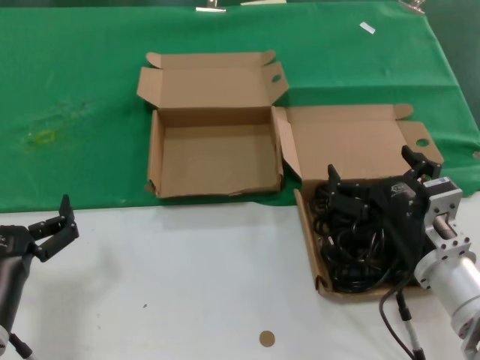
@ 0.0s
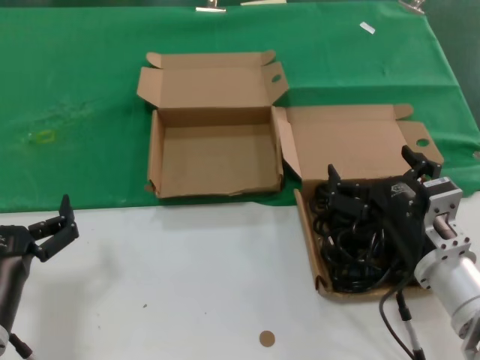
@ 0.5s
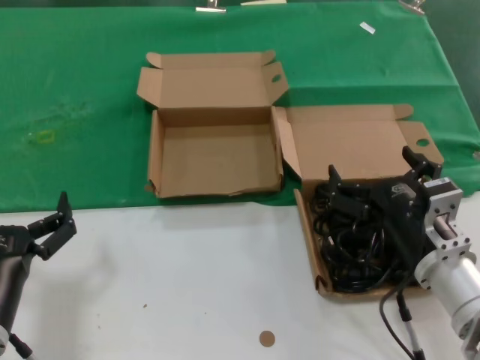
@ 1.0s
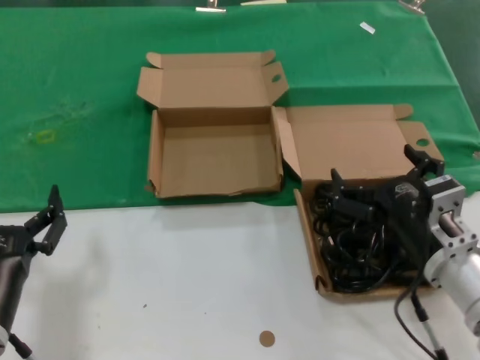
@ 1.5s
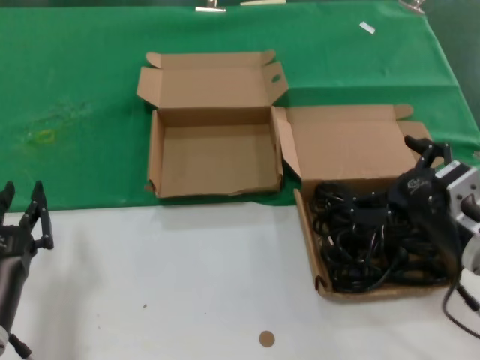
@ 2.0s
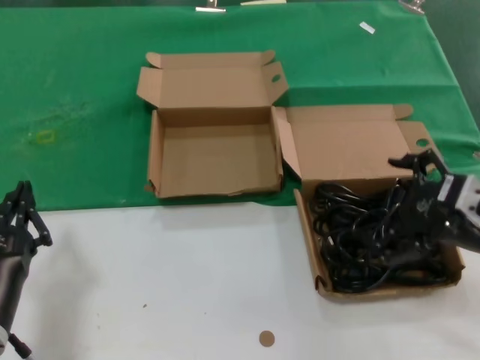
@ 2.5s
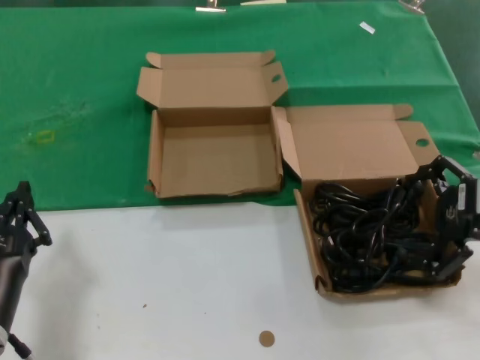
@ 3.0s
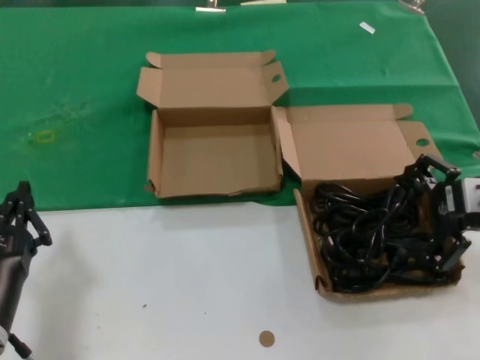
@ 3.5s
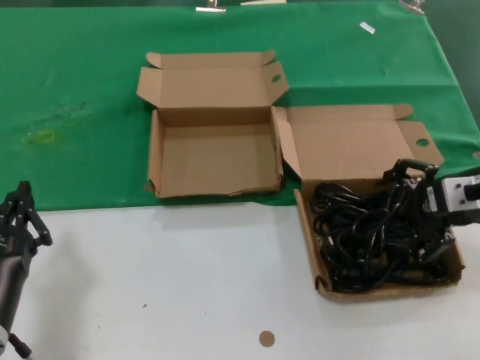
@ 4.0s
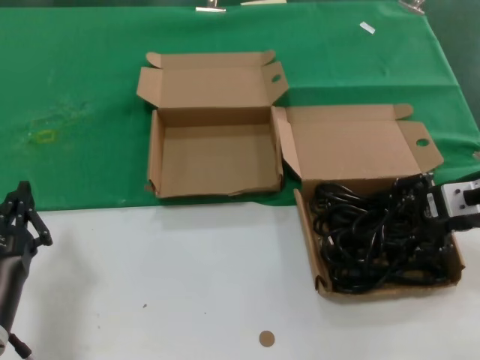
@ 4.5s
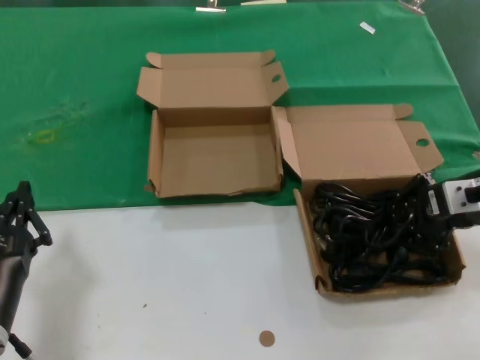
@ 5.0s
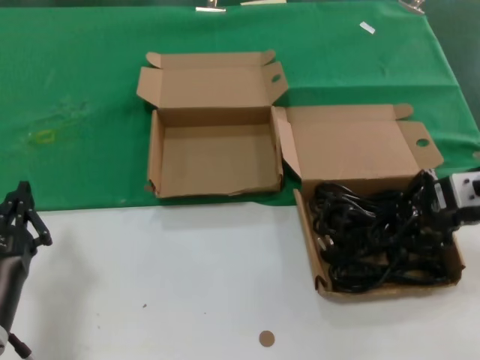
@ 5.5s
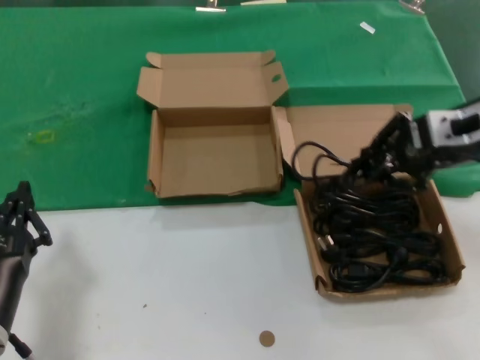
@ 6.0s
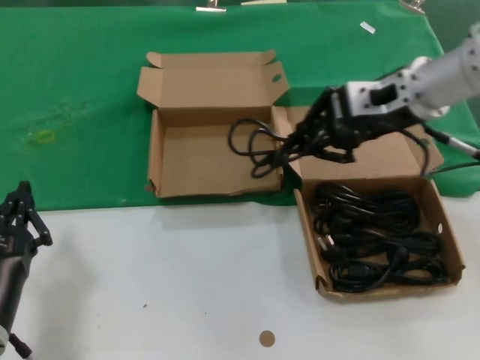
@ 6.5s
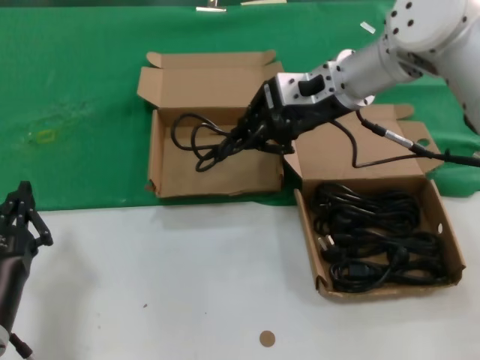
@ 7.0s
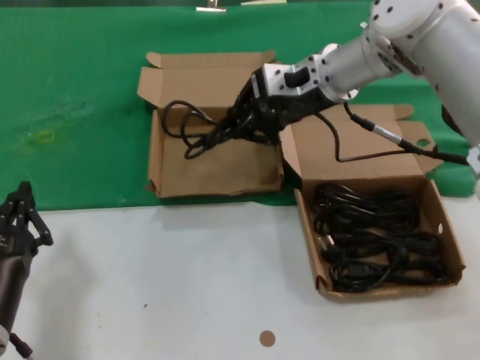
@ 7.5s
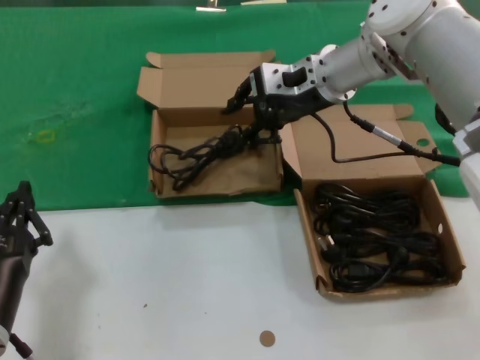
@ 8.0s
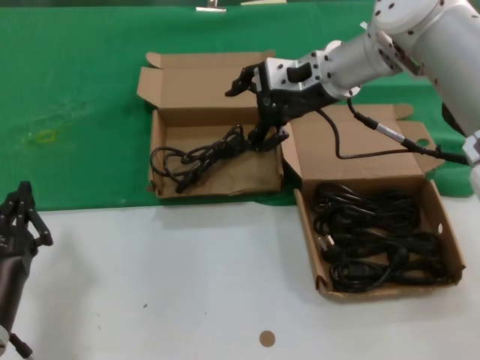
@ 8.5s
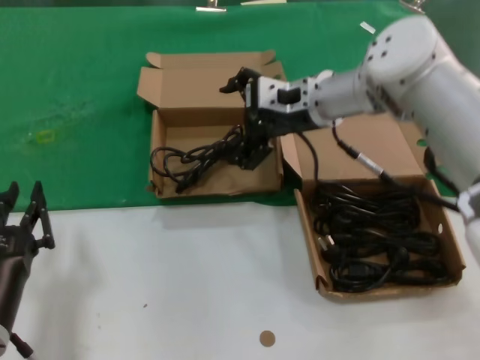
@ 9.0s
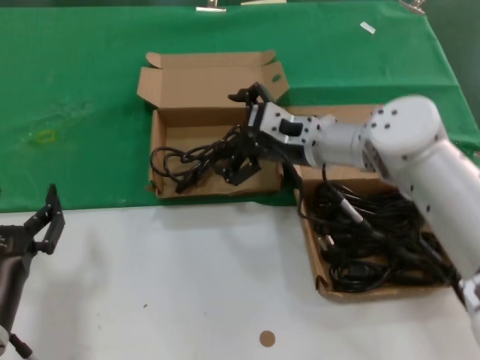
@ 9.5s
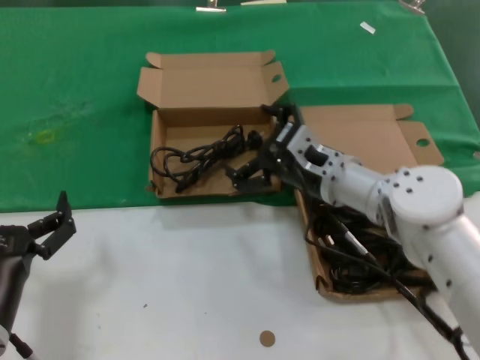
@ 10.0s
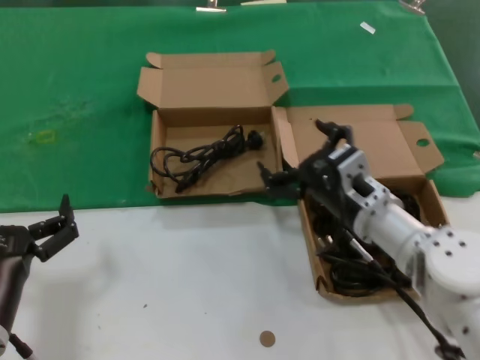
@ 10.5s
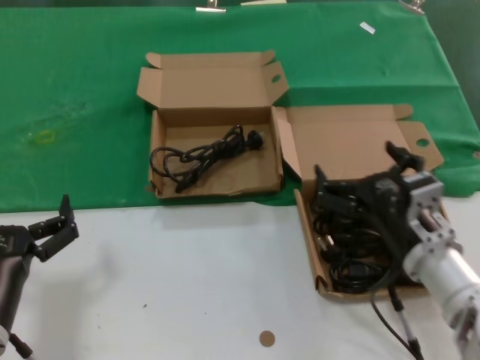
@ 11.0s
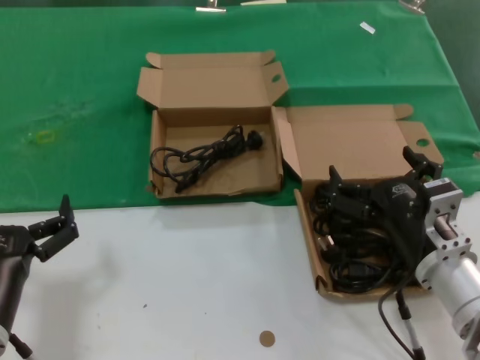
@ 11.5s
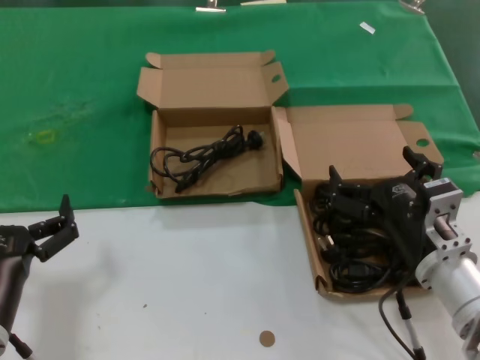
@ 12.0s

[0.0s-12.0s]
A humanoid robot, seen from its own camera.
Task of the whole recording: take the parts from the box containing them and put them into an empty box.
Step, 0.0s to 5.0s: Grasp the data cable.
Step, 5.5s to 8.0s: Place the data cable in the another box.
0.0s to 2.0s: The right hand moves about 5 cm.
2.0s to 4.0s: The right hand heads forward, upward and to the right, covering approximately 15 cm.
4.0s to 6.0s: The right hand moves upward, approximately 10 cm.
6.0s to 8.0s: The right hand moves to the left and forward, roughly 20 cm.
8.0s to 10.0s: The right hand goes approximately 20 cm downward and backward.
10.0s to 12.0s: The right hand shifts some 15 cm backward and to the right.

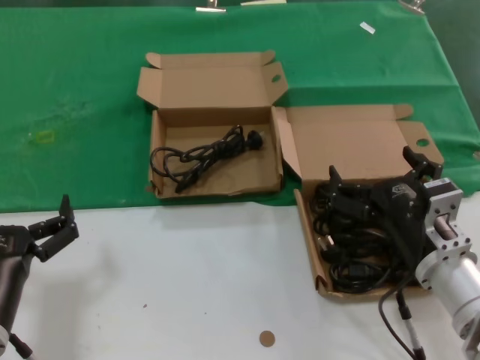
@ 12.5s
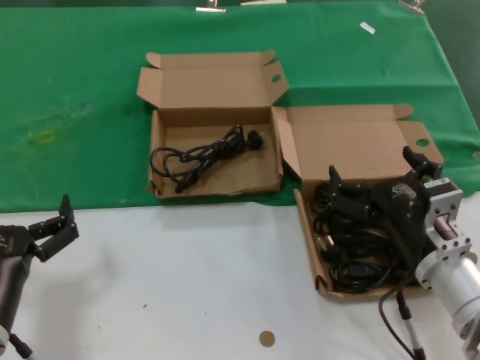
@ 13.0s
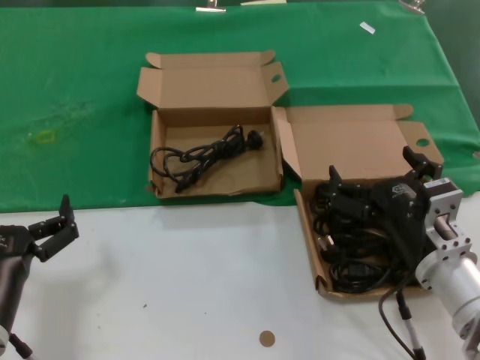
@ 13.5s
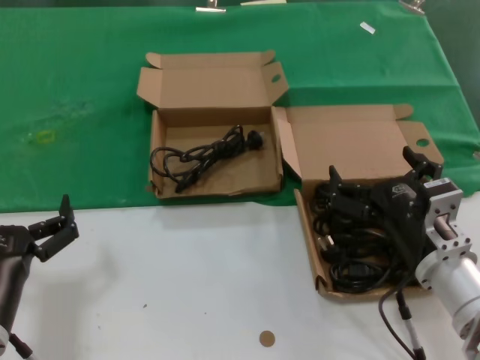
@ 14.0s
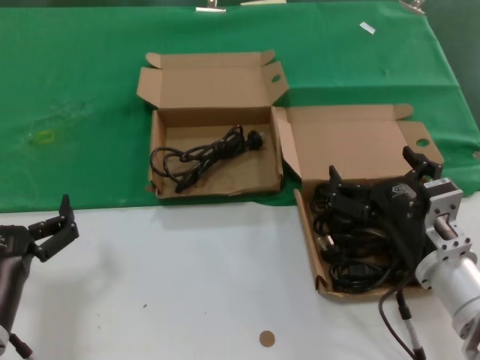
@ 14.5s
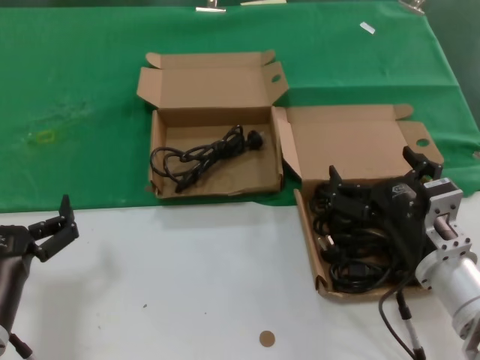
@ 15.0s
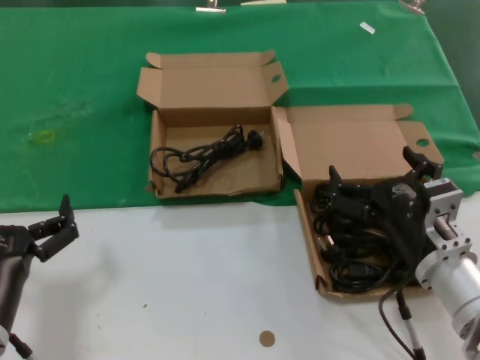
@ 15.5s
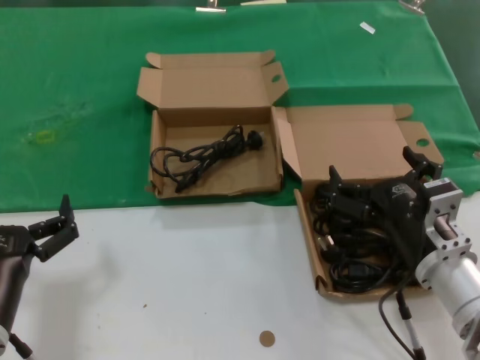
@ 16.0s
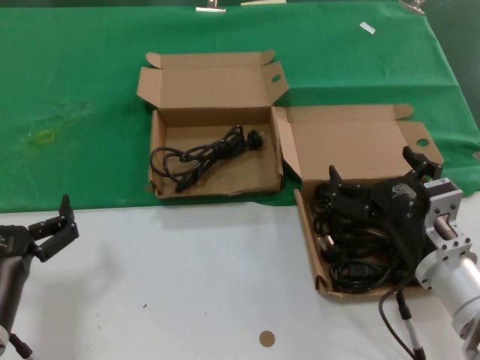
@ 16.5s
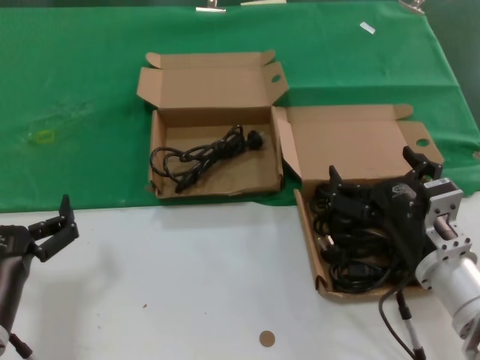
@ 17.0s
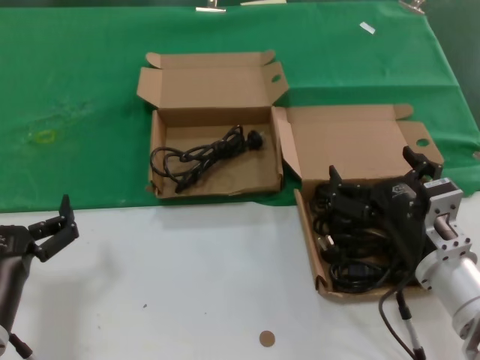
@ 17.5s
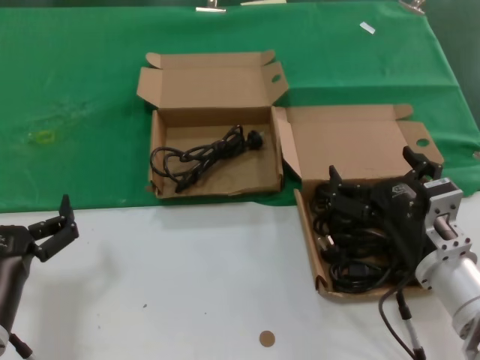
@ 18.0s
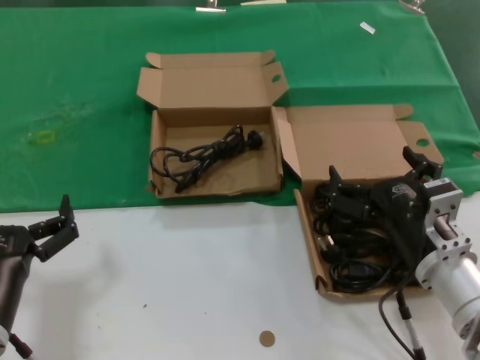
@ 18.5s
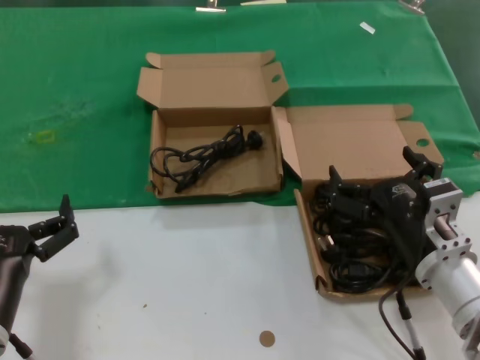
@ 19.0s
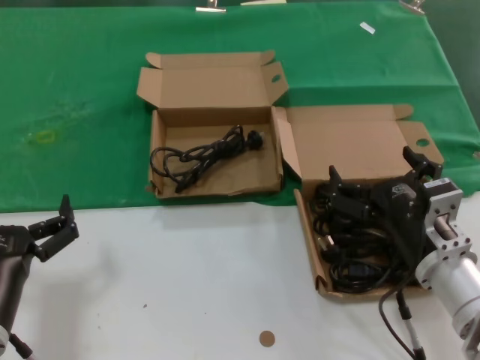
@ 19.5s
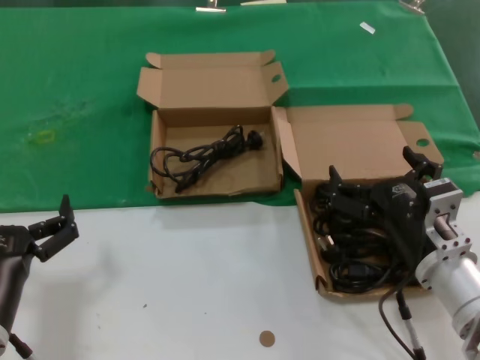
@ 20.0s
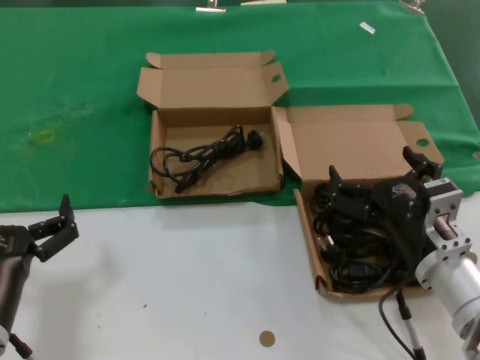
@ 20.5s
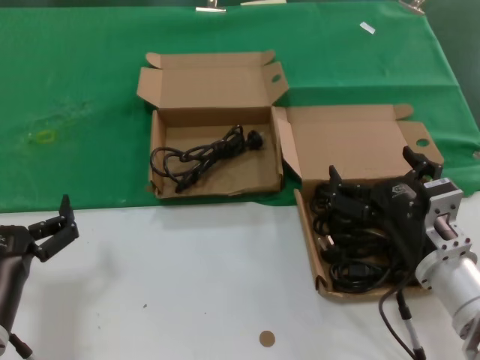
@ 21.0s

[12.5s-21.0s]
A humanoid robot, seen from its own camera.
Task of the whole recording: take the parts from the box containing them and put them into an empty box.
12.5s to 21.0s: Neither hand changes place.

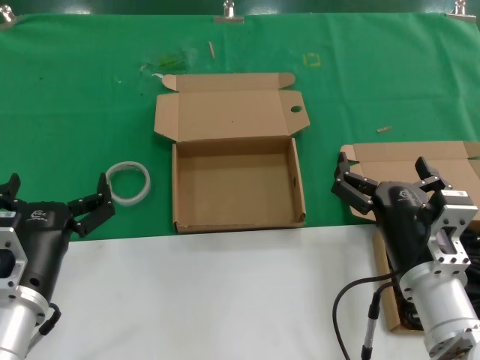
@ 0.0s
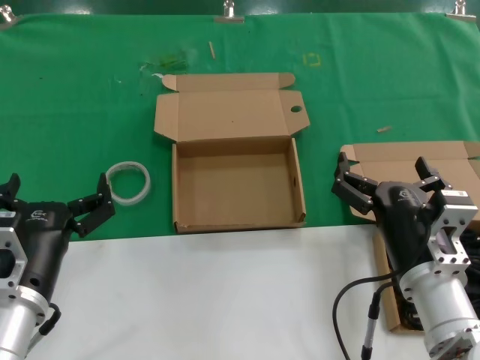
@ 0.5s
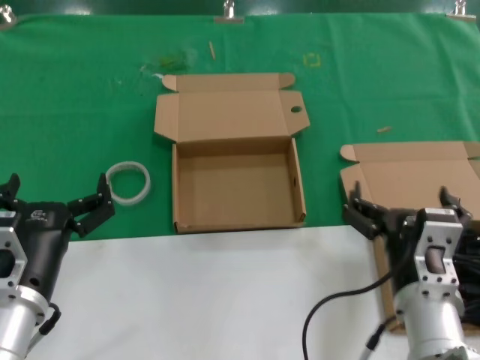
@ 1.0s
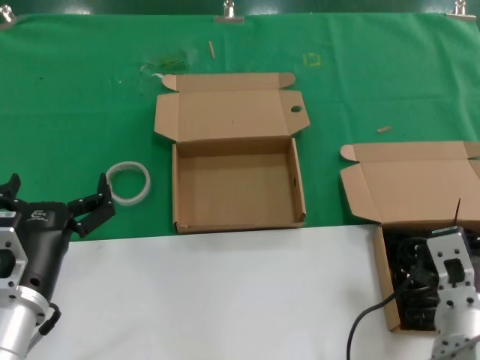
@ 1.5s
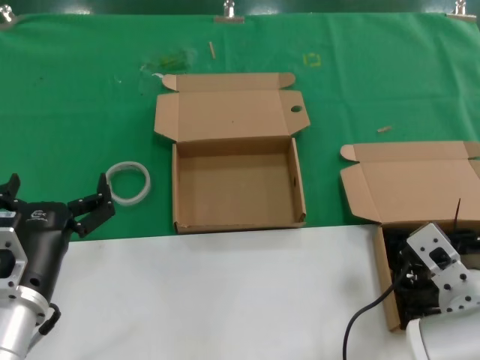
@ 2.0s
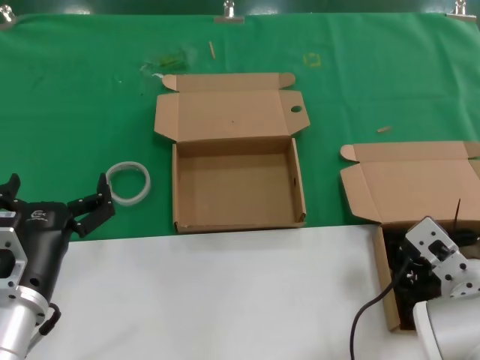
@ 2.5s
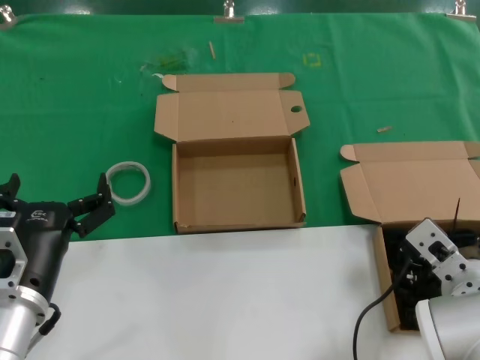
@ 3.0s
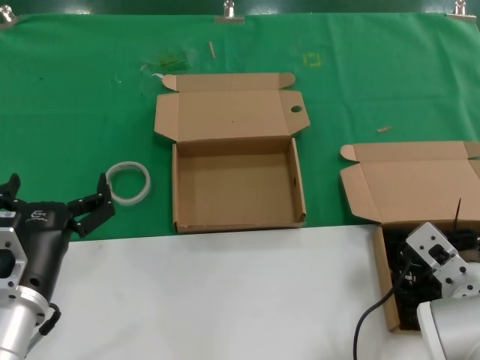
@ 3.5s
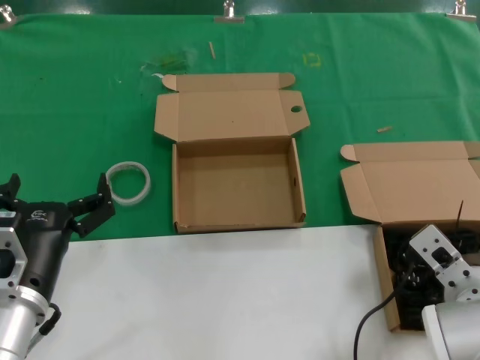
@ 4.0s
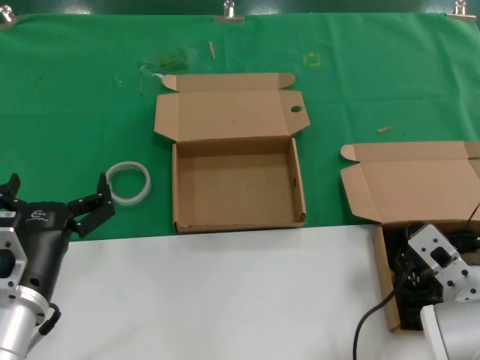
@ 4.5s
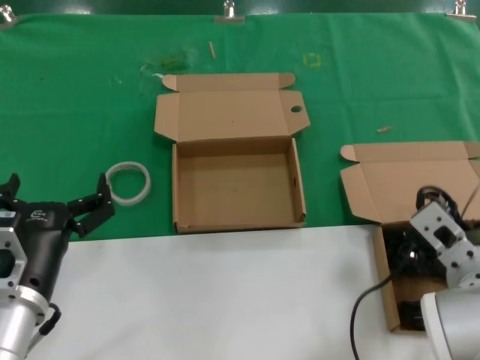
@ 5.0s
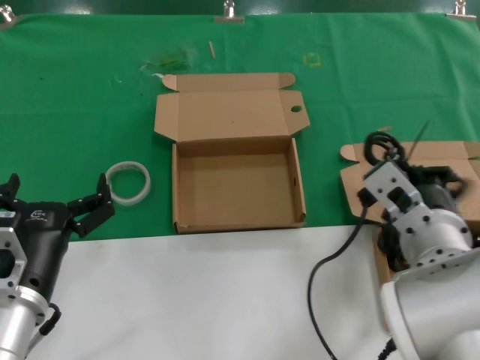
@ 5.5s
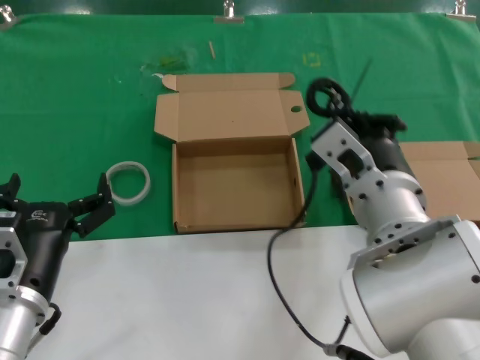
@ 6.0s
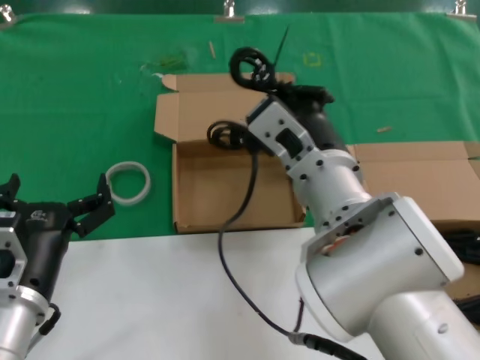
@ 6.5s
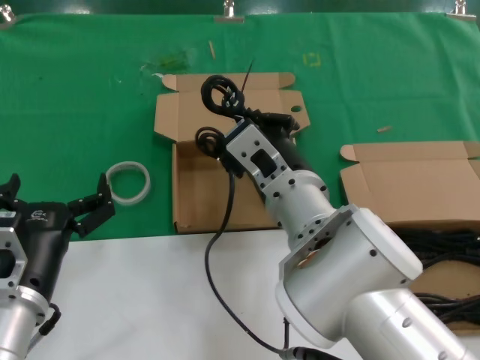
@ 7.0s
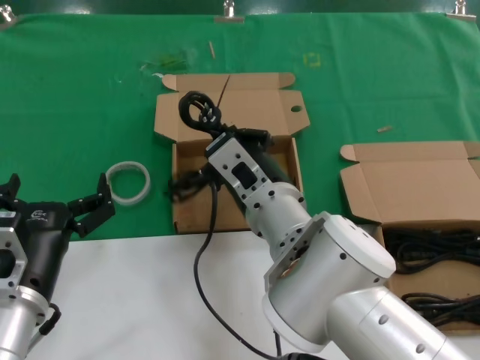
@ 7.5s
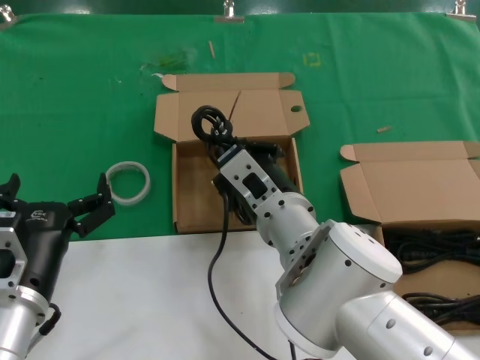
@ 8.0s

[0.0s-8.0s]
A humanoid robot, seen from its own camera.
Task of the whole recording: take the parts from the box containing them and put them into an empty box.
Step, 0.0s to 4.5s: Grasp the data cable.
2.0s to 4.0s: The hands stay close to where they were, moving slightly.
4.0s to 6.0s: The right hand travels to the left and upward by some 15 cm.
6.0s to 8.0s: The right hand shifts approximately 10 cm to the left and downward.
